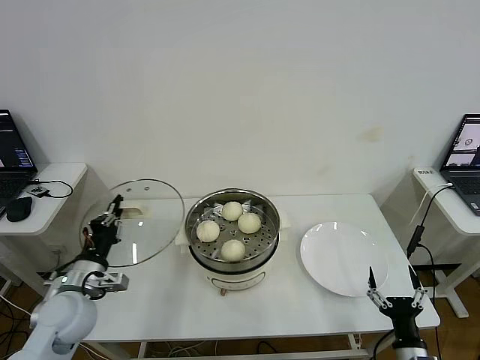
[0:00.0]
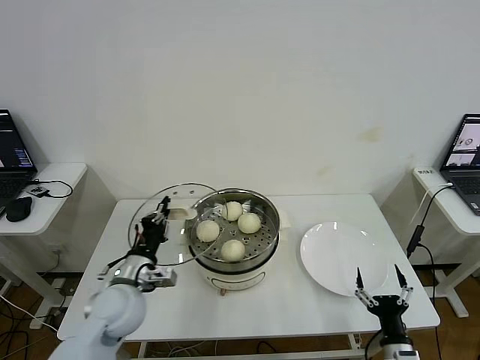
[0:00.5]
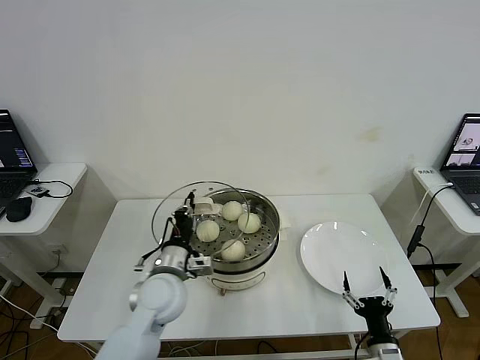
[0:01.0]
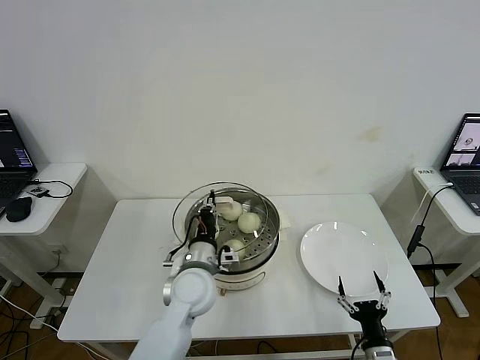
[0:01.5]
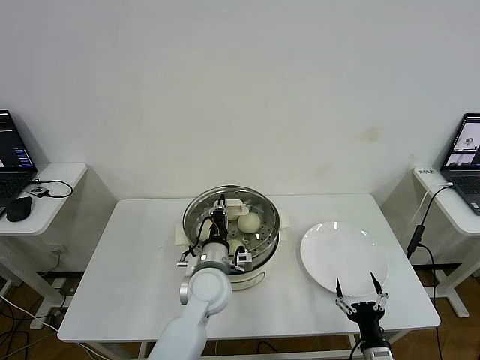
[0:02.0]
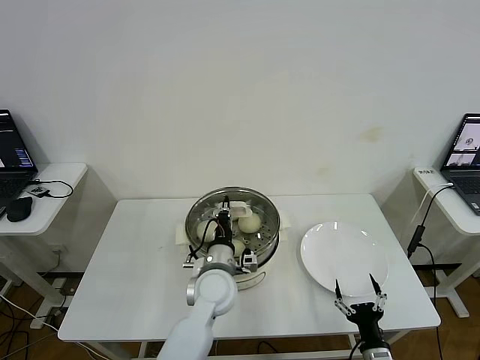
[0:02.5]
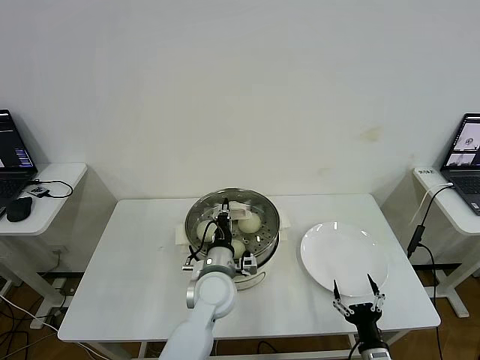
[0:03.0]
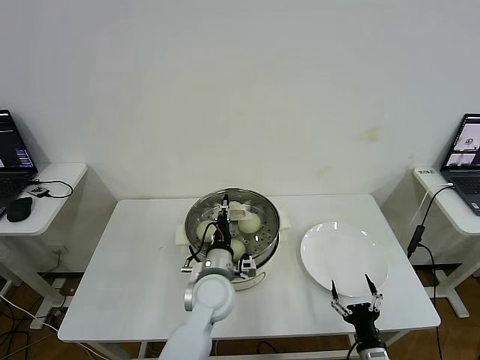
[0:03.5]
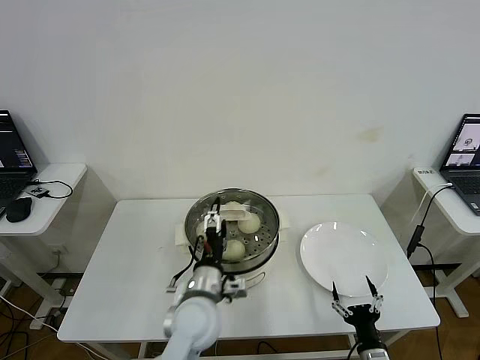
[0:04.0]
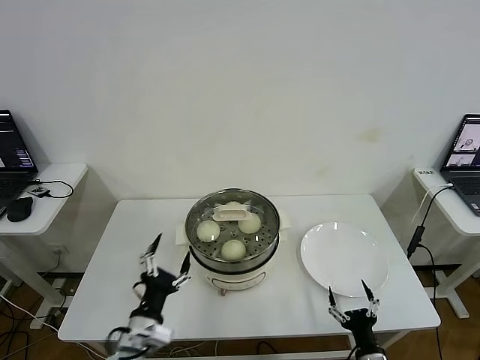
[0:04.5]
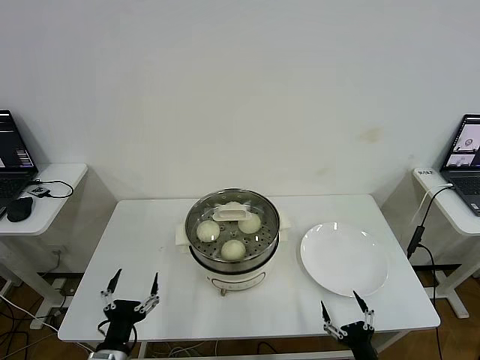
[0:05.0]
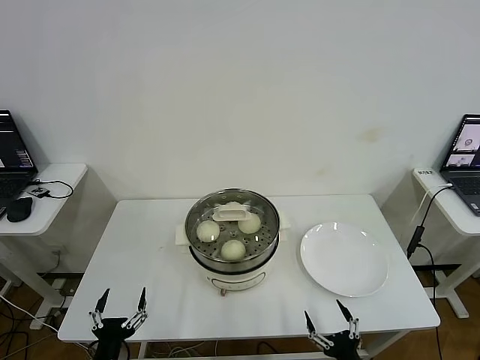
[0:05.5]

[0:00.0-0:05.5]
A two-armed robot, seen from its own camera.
Step, 0:00.0 to 0:03.0: Place the pot lid on the steamer with left gripper.
0:00.0 to 0:02.0: The right gripper shifts by approximately 5 cm, while the left gripper heads to the right, covering roughly 25 cm.
0:02.0 to 0:03.5: The grippers stay close to where they were, moving slightly.
0:03.5 to 0:05.5: The right gripper shifts roughly 5 cm backward. Meanwhile the left gripper shifts roughly 30 cm to the left and backward, and opens up.
